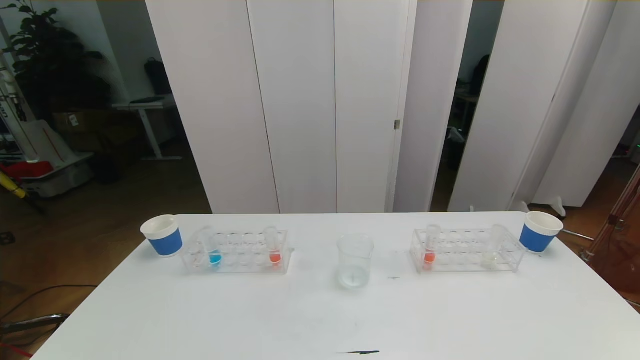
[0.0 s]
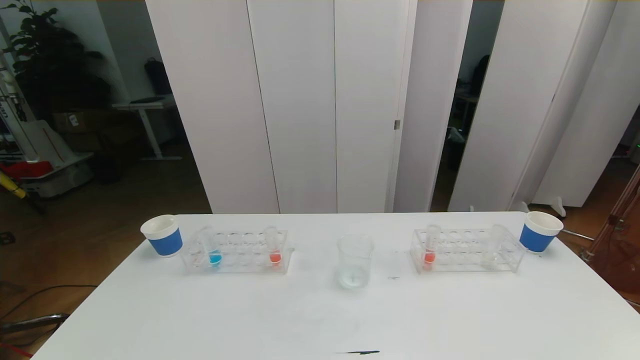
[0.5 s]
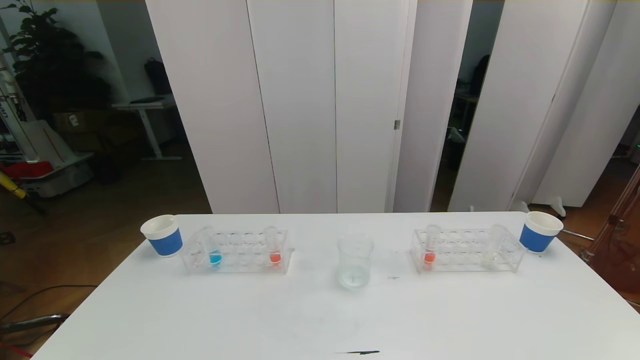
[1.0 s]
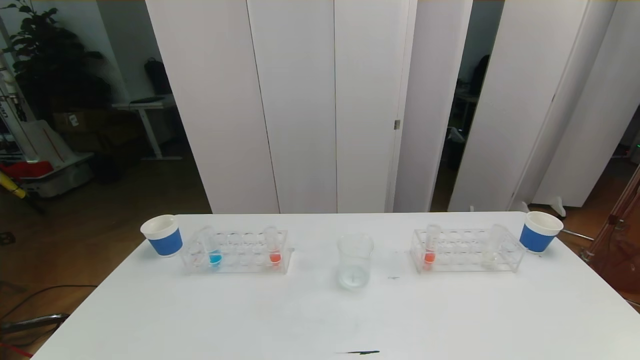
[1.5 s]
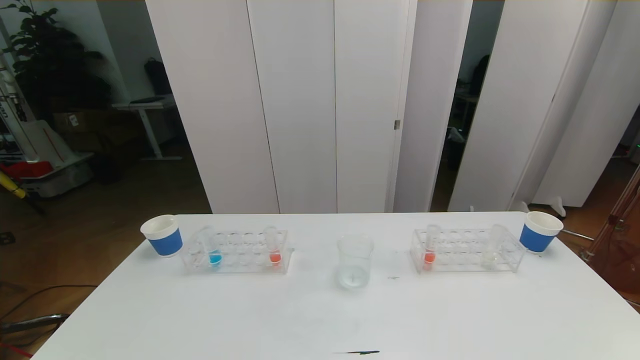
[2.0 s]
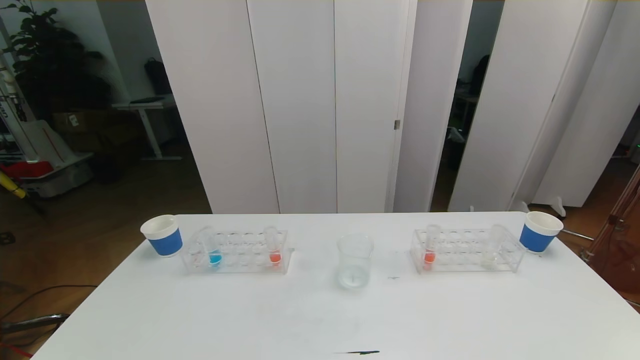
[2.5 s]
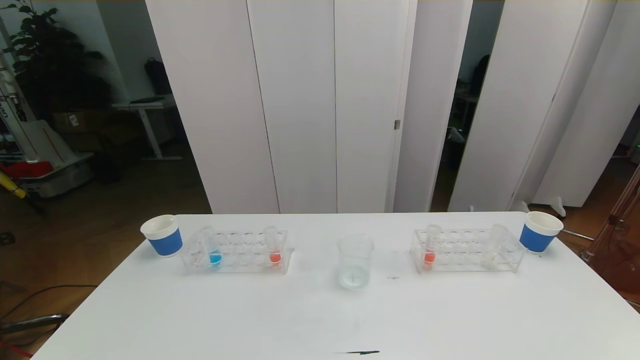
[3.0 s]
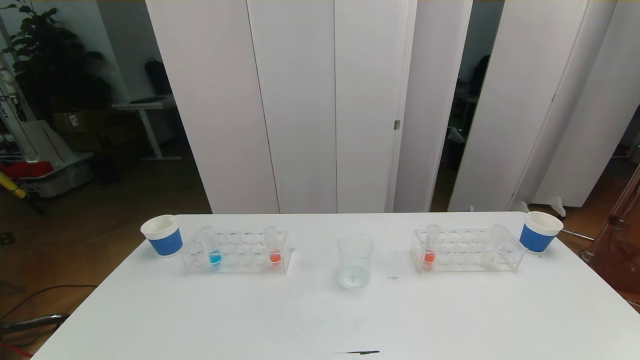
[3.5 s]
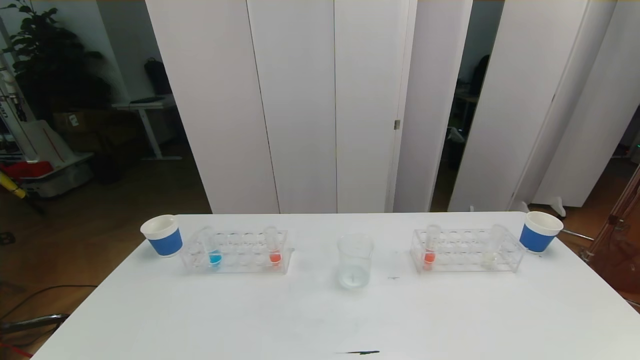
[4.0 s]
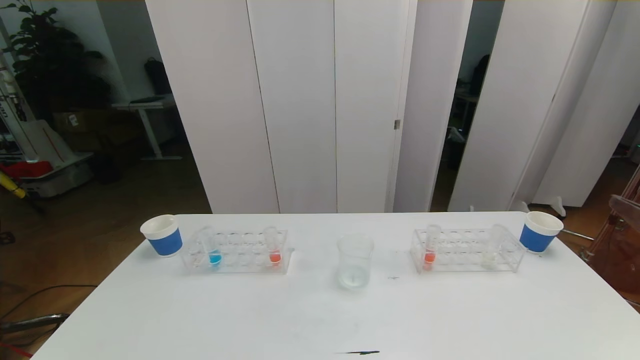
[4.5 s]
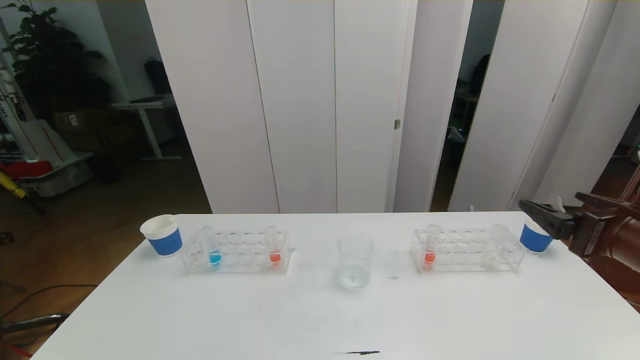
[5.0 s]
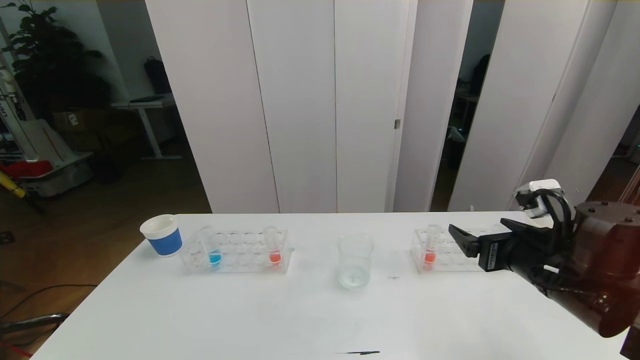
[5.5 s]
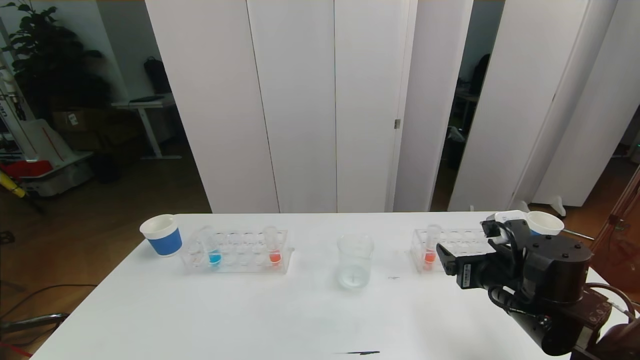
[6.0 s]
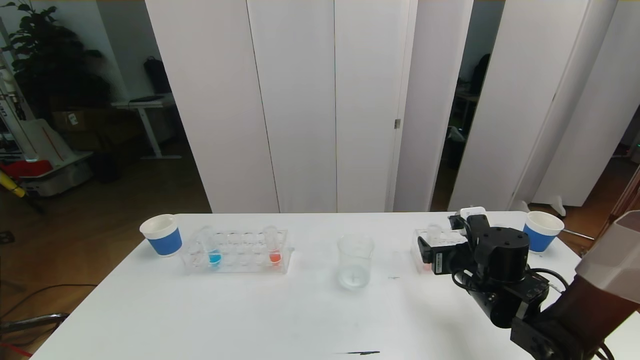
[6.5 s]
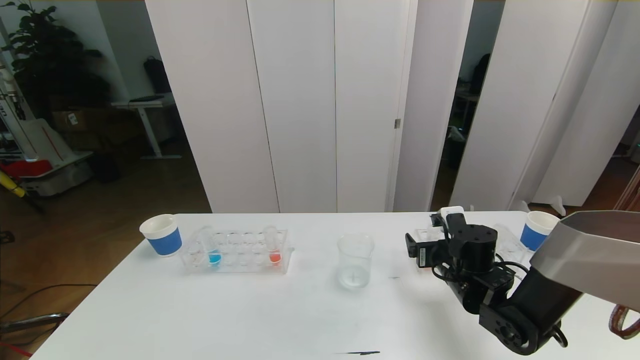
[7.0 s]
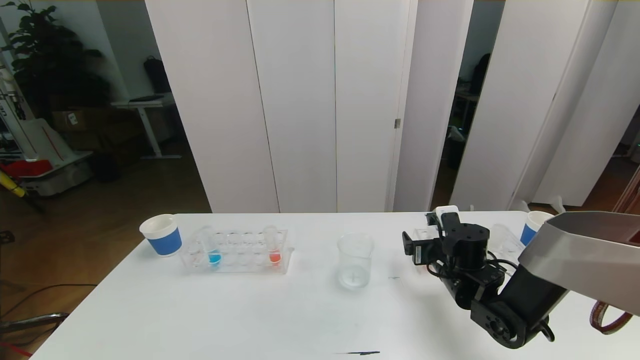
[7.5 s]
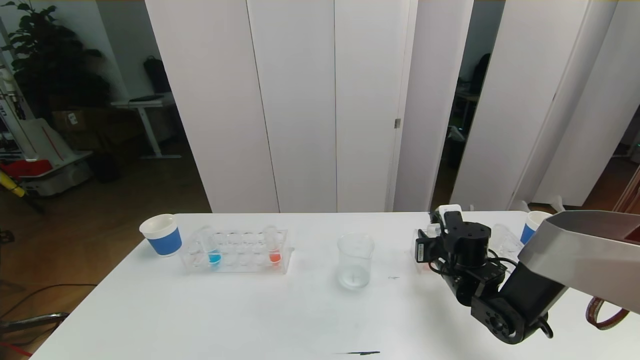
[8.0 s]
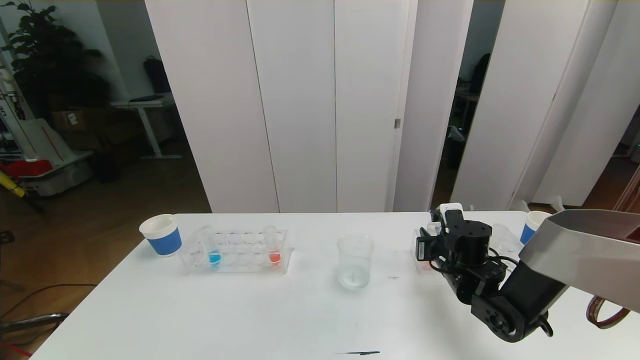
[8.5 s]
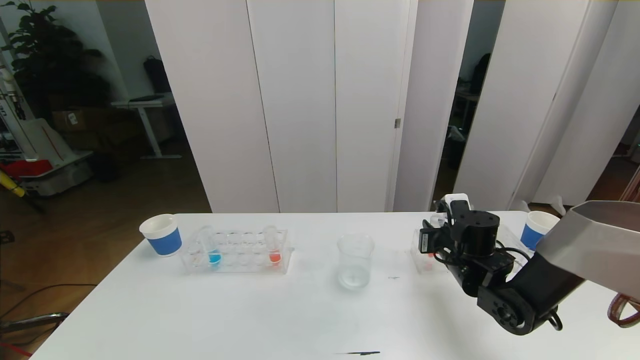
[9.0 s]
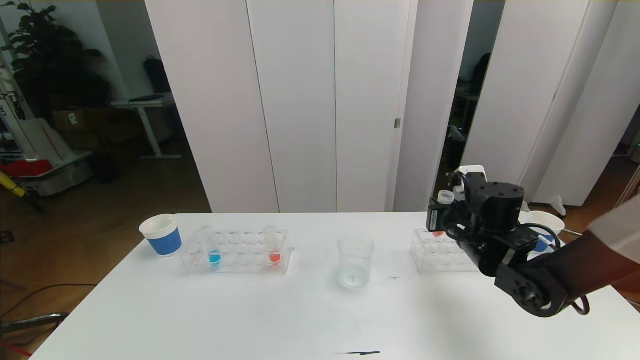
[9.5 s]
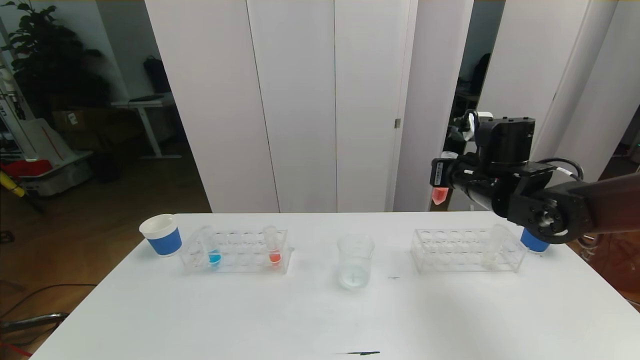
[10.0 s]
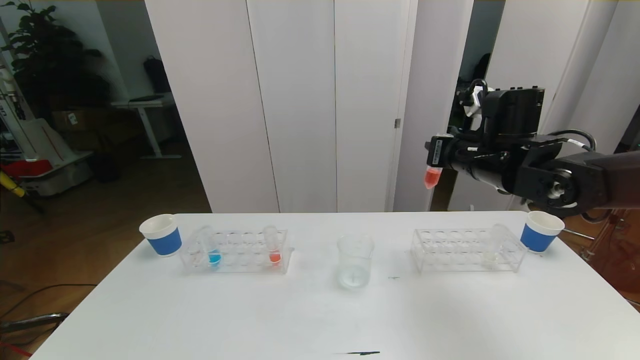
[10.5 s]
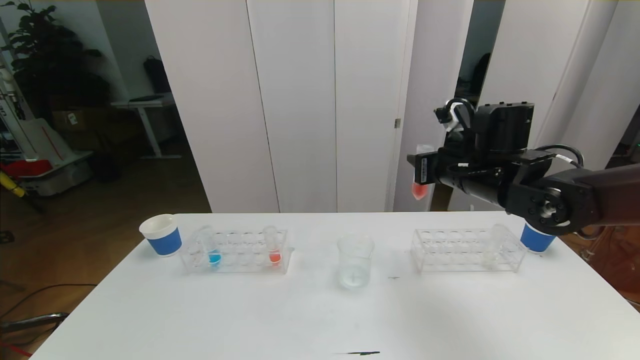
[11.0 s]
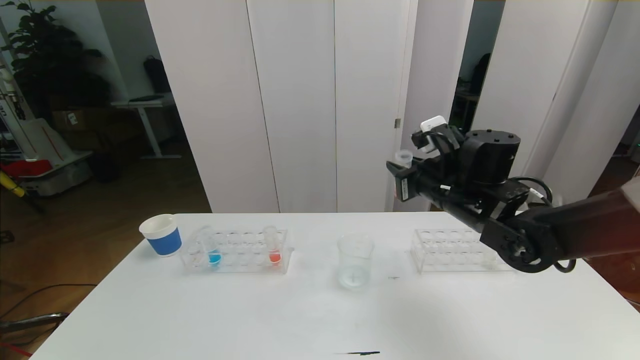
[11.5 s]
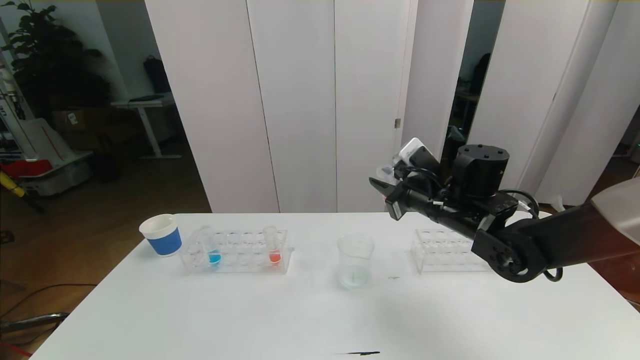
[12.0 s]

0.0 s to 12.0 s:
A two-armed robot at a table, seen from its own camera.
Task of the whole recording: pick up the test tube with red pigment the test tube with blue pigment and the test tube with white pigment by grippers and pour them into the beaker.
0.0 to 2.0 s: Both grippers stay put.
4.0 to 6.0 s: The right gripper is displaced forward, downward and to the left by approximately 30 cm.
6.0 to 8.0 s: The right gripper travels forward and downward by about 10 cm, and closes its fingers.
8.0 to 10.0 s: The right gripper is displaced upward by roughly 15 cm.
10.0 to 12.0 s: The right gripper moves to the left, approximately 5 cm.

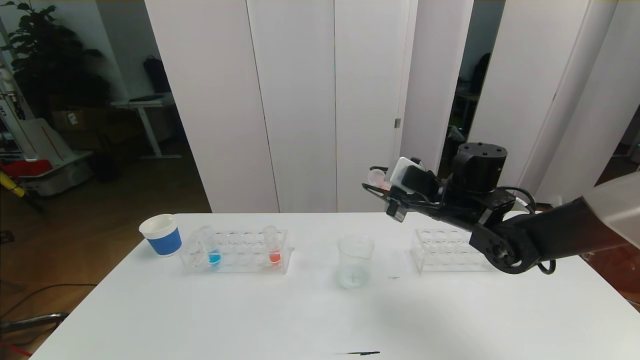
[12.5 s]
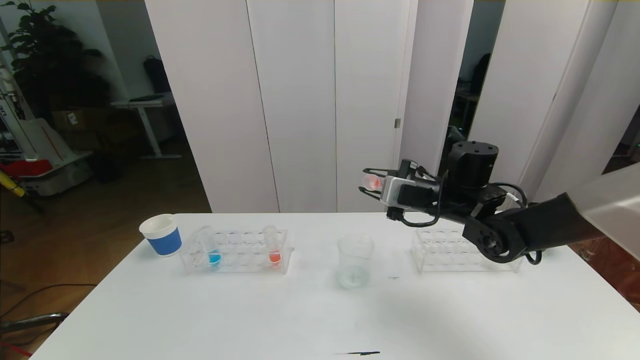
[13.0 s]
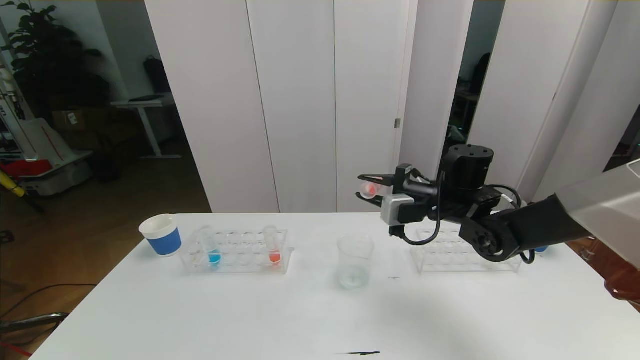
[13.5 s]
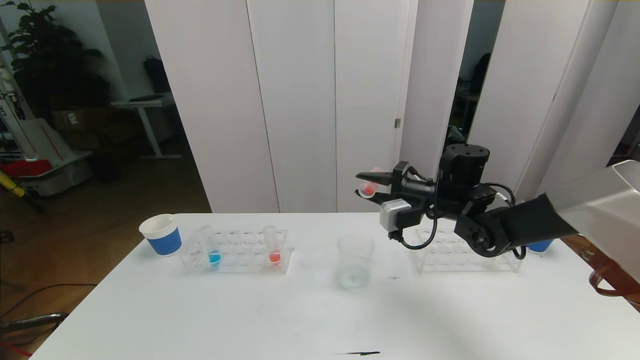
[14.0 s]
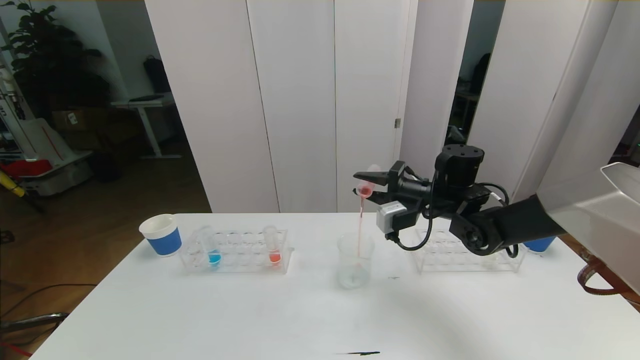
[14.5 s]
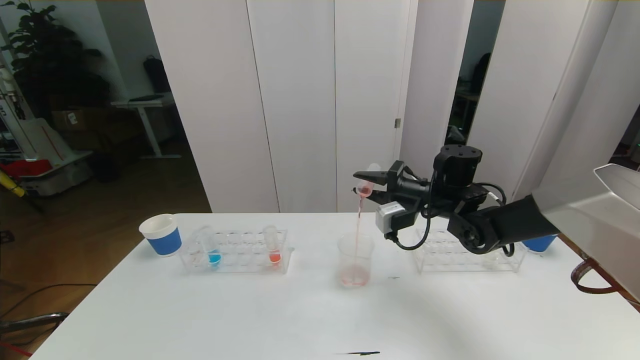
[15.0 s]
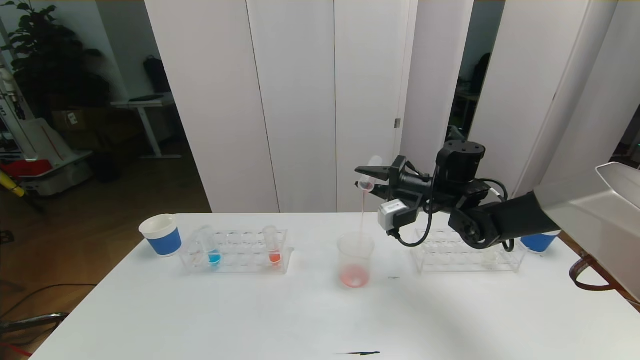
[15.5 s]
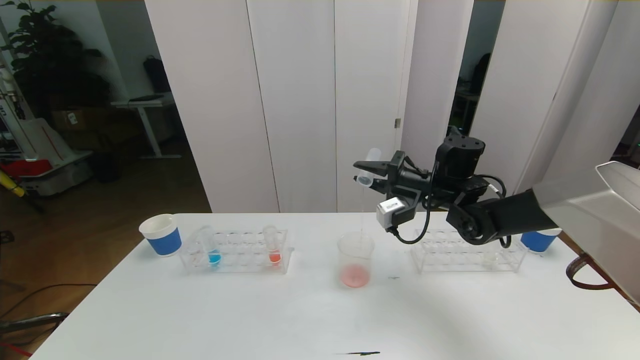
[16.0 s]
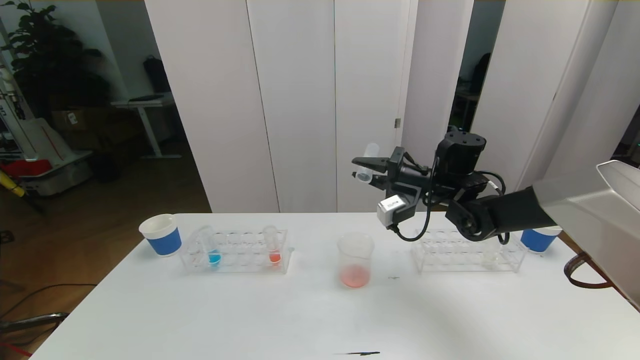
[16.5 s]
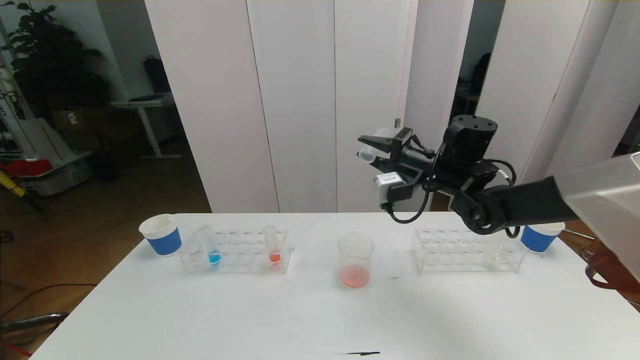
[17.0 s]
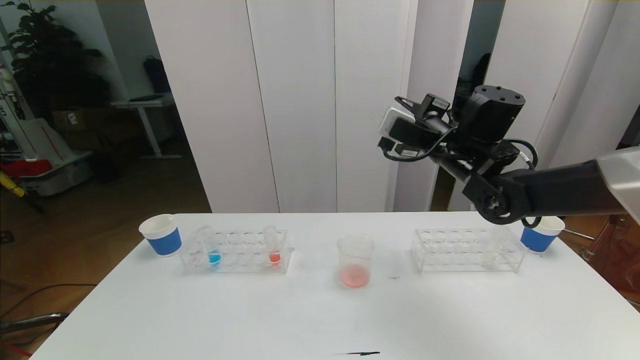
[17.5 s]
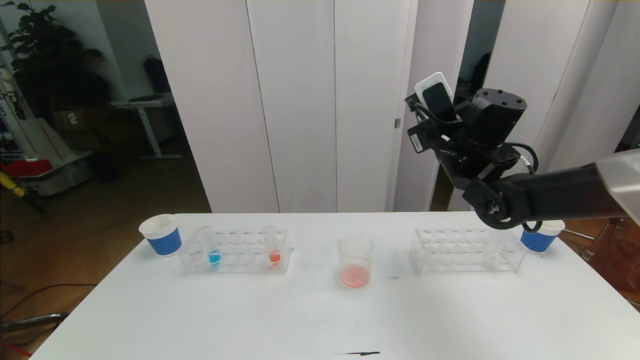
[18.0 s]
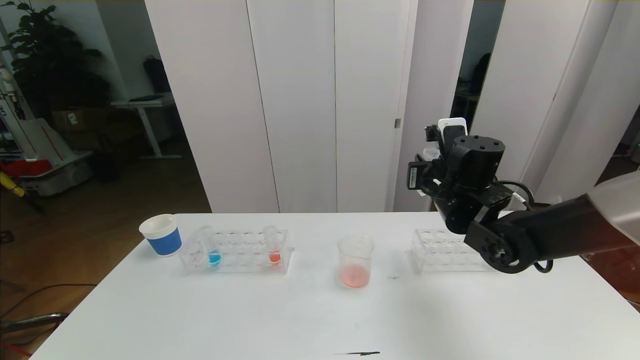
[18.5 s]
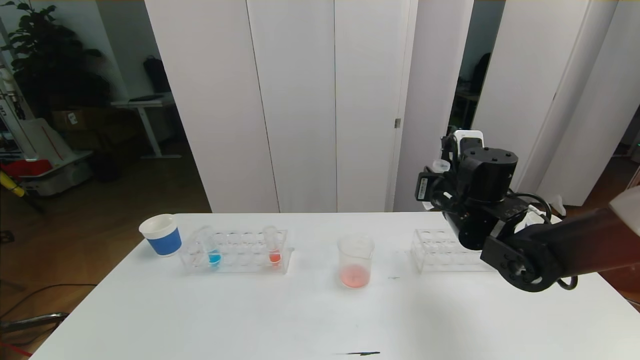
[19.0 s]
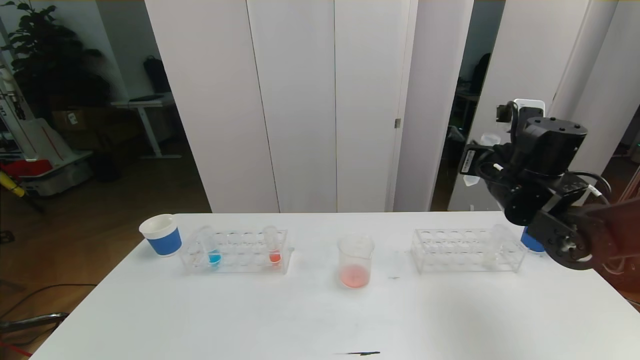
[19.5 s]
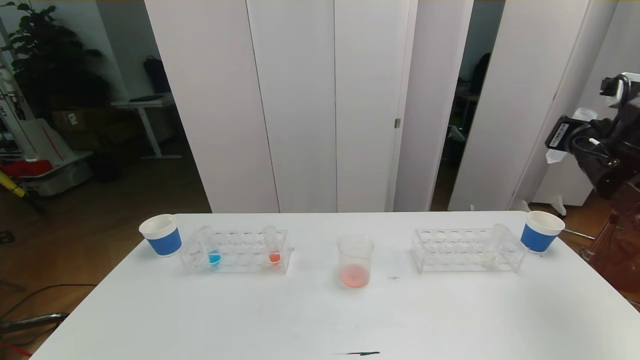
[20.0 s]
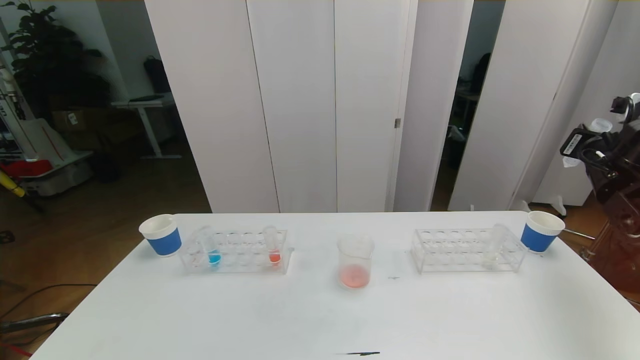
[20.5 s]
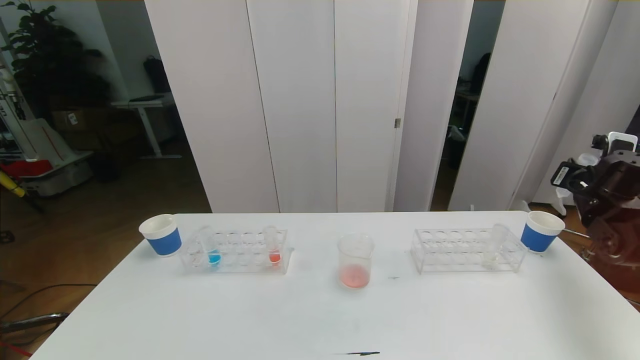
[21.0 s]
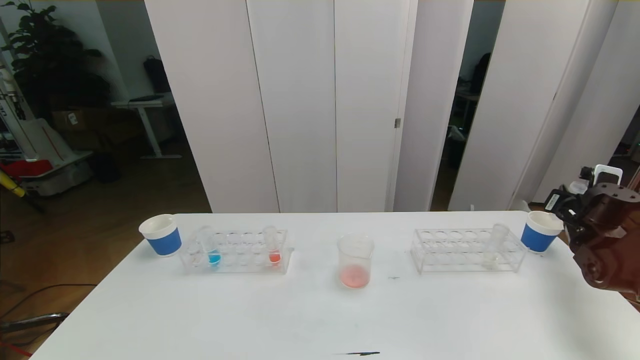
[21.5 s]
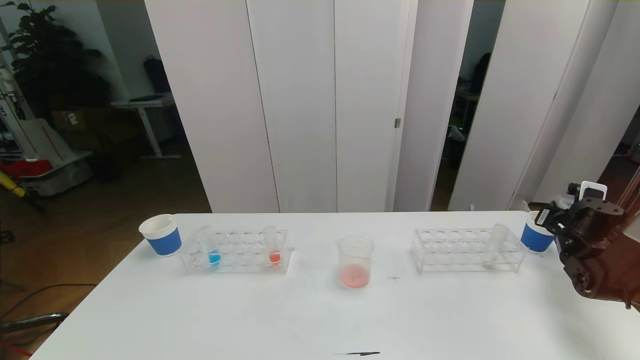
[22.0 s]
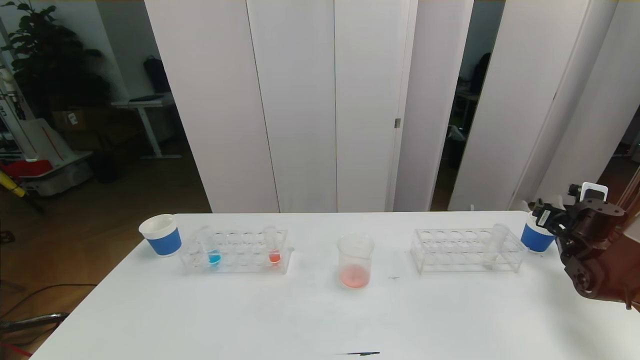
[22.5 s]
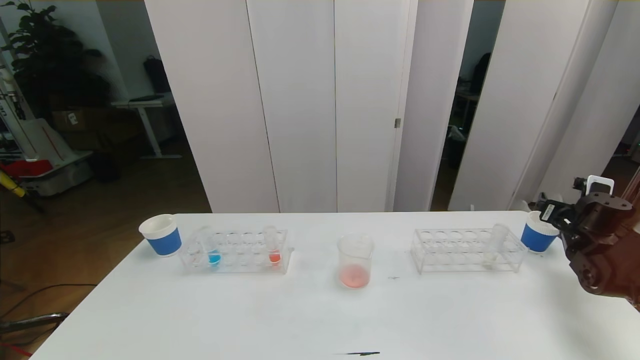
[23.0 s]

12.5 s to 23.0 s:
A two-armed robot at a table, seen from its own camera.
Task of the whole recording: pick up the test tube with red pigment the test tube with blue pigment and the test tube with white pigment by grippers and pour them into the beaker.
14.5 to 16.5 s: The grippers move only a little.
16.5 to 19.0 s: The right gripper shifts roughly 10 cm backward.
19.0 to 21.0 s: The right gripper shifts about 25 cm to the right.
21.0 to 23.0 s: The right gripper heads downward, covering approximately 10 cm, and opens its fingers.
